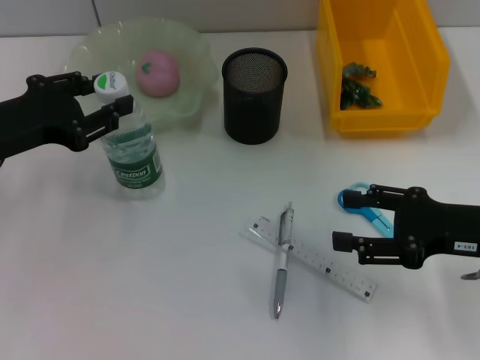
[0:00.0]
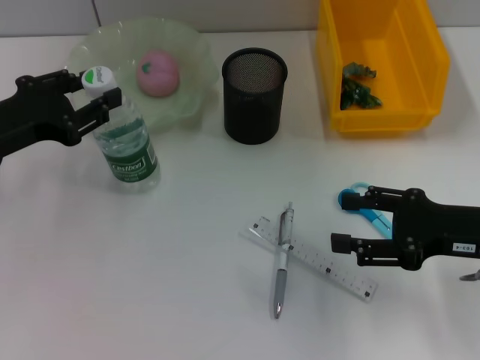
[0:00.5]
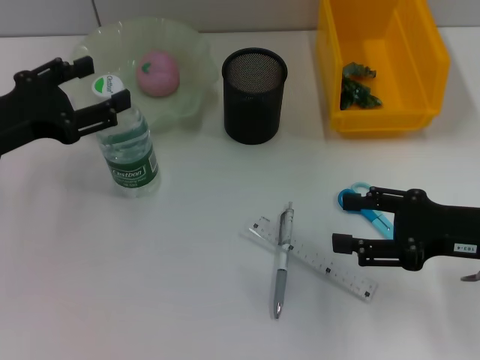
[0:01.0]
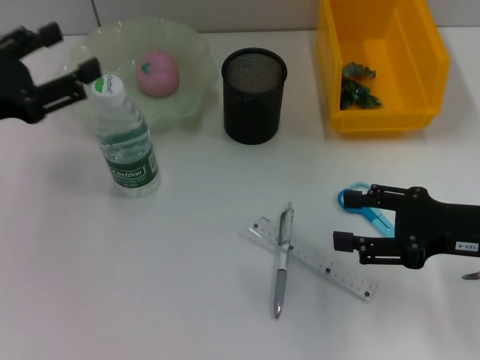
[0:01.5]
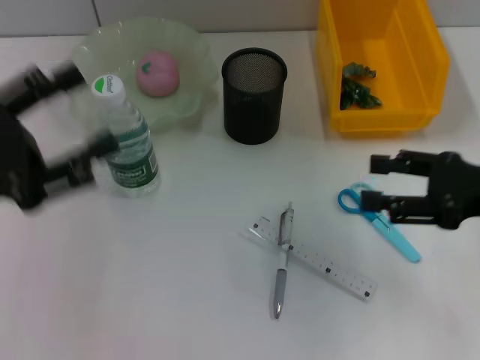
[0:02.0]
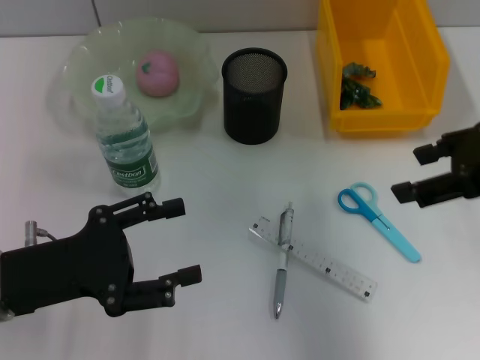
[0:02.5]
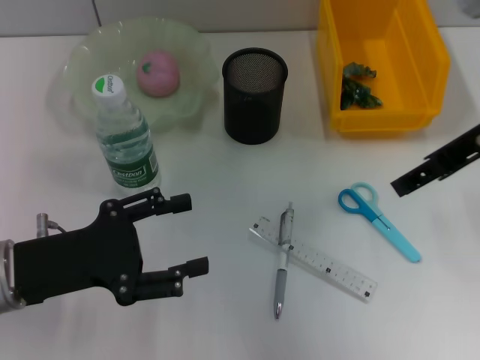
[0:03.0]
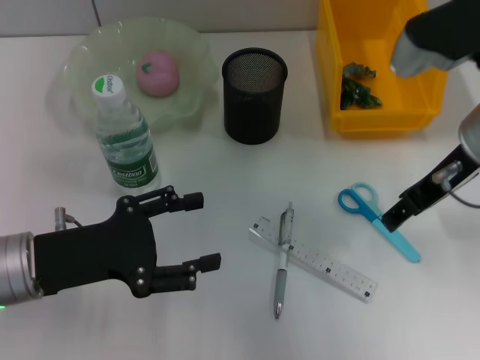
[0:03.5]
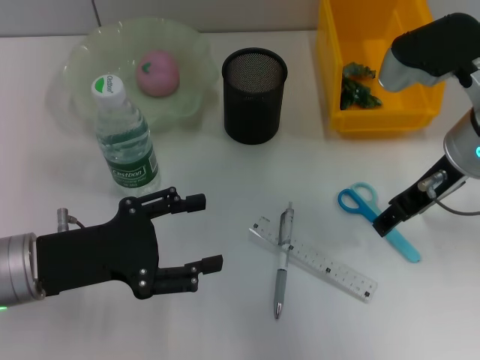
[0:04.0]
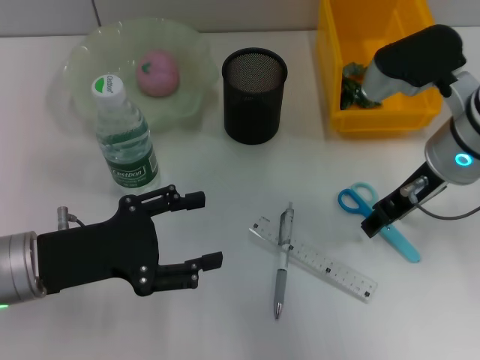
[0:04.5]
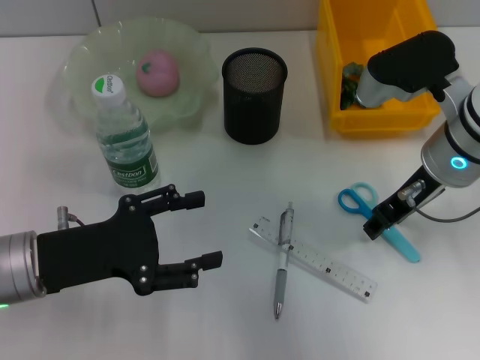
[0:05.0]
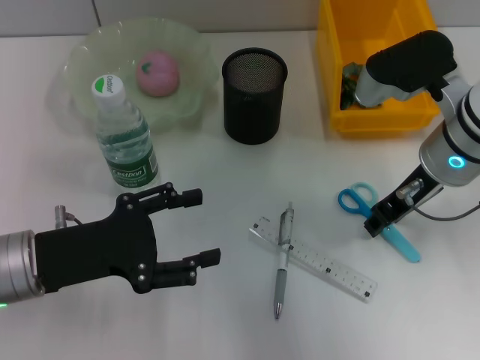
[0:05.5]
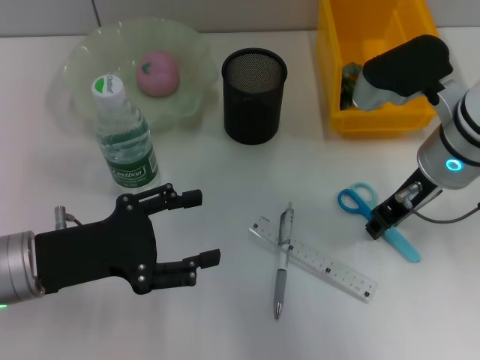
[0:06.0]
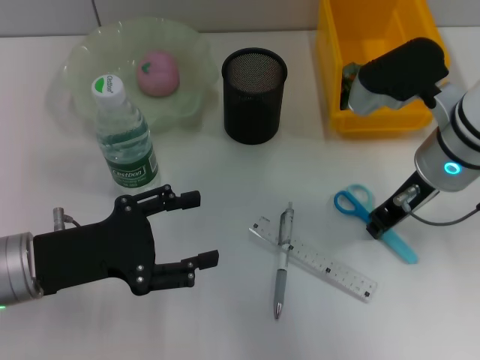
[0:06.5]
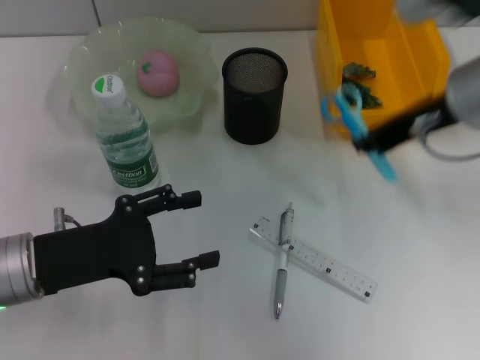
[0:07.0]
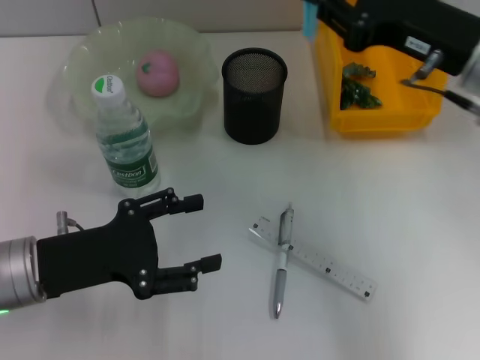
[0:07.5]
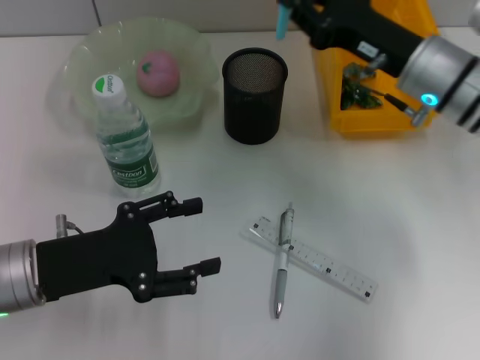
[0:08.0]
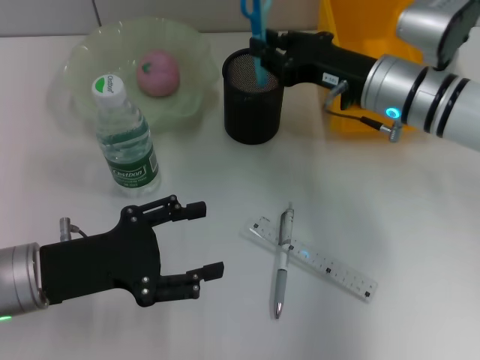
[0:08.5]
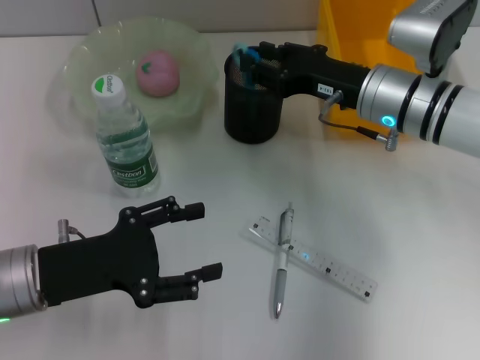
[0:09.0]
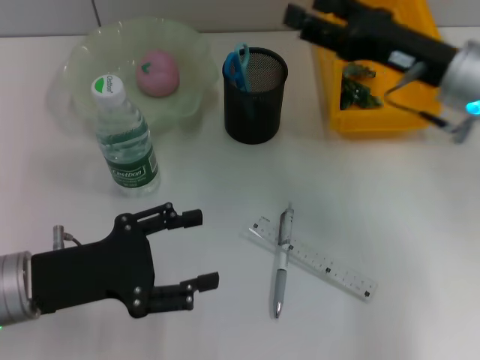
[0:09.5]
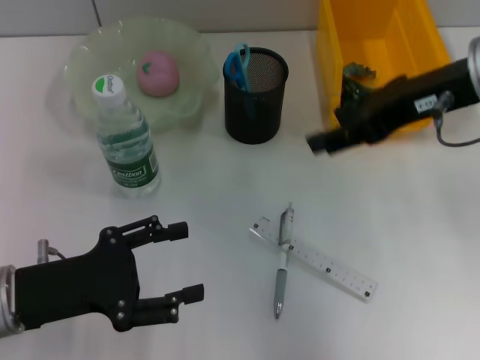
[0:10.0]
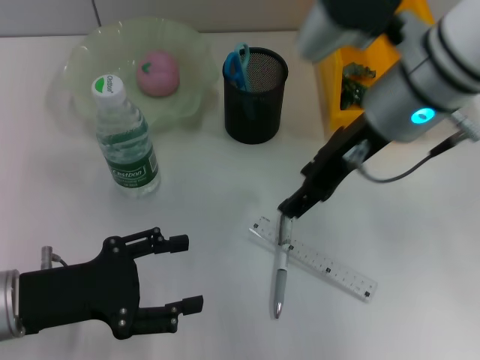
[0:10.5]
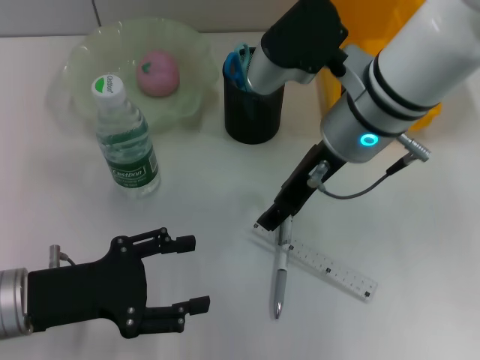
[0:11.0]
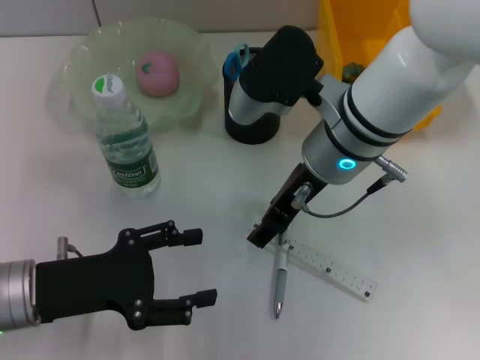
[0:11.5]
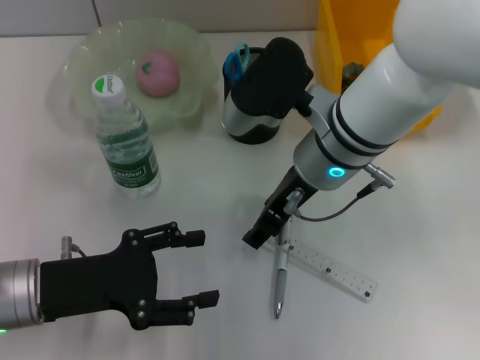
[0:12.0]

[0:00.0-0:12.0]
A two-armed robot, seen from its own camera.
Step, 0:01.5 to 0:06.0: Grab the blue scissors with the right hand.
Step, 0:06.5 to 0:09.0: Place the blue scissors into the pen holder with the right hand.
0:00.0 to 0:02.0: The left gripper moves backward, some 5 cm, and opens up.
0:02.0 to 0:04.0: The right gripper travels to the left and forward by some 15 cm, and reaches about 10 cm upward, then returns, while the left gripper goes some 10 cm downward and to the right.
0:04.0 to 0:06.0: The right gripper closes up.
0:06.0 to 0:08.0: The right gripper goes upward and returns, some 10 cm each way.
0:08.0 to 0:10.0: The right gripper heads upward, covering approximately 10 cm, and opens.
0:10.0 to 0:12.0: The right gripper shifts approximately 15 cm to the left and downward.

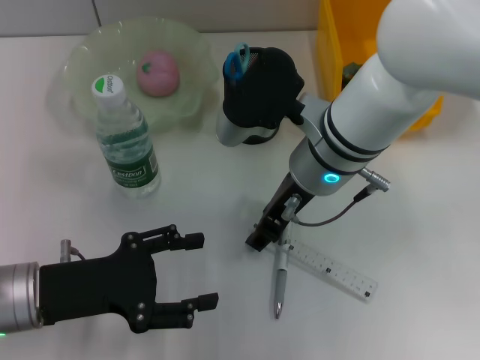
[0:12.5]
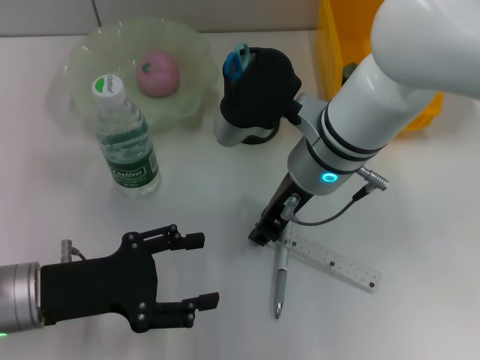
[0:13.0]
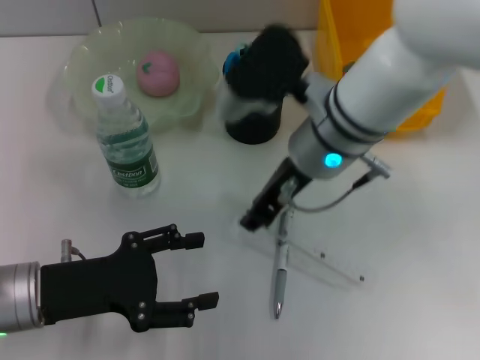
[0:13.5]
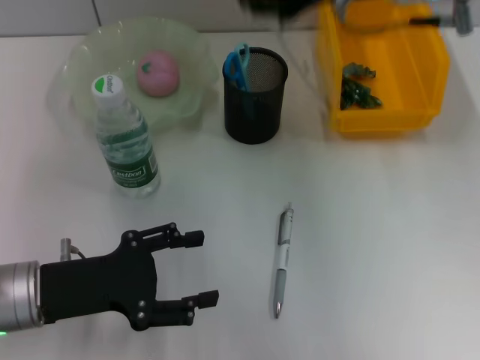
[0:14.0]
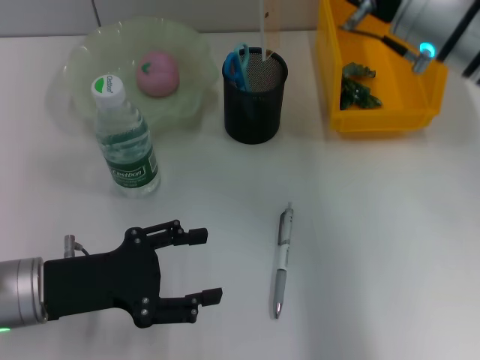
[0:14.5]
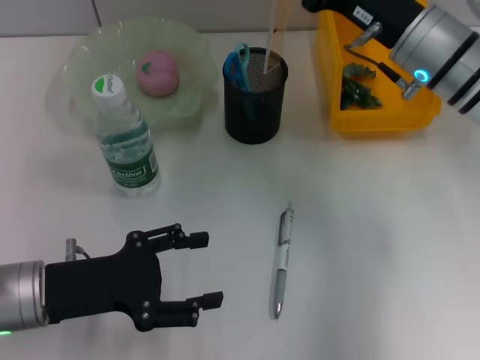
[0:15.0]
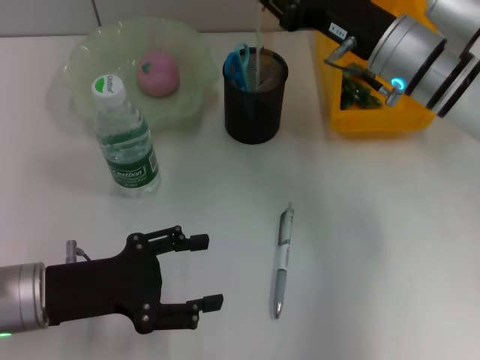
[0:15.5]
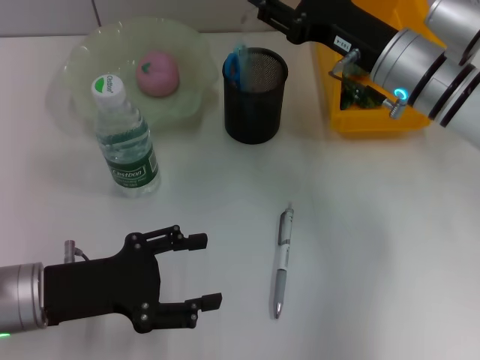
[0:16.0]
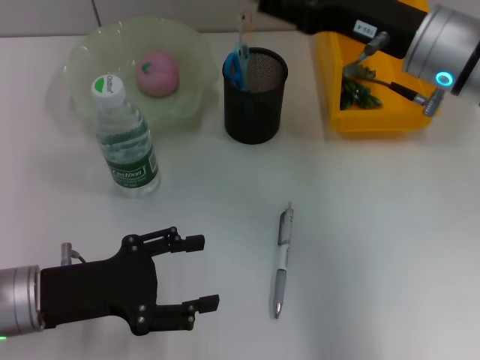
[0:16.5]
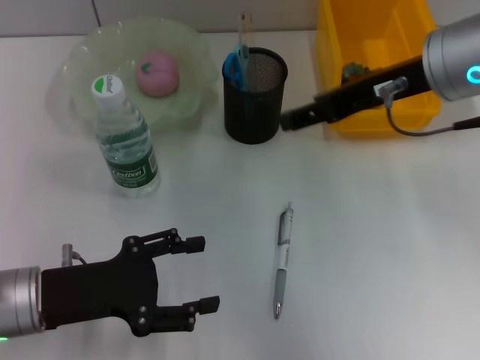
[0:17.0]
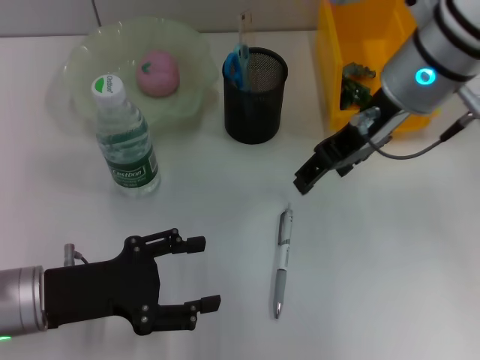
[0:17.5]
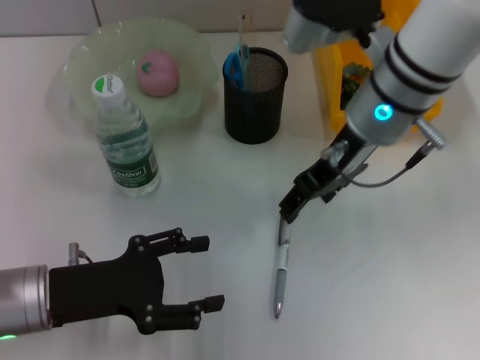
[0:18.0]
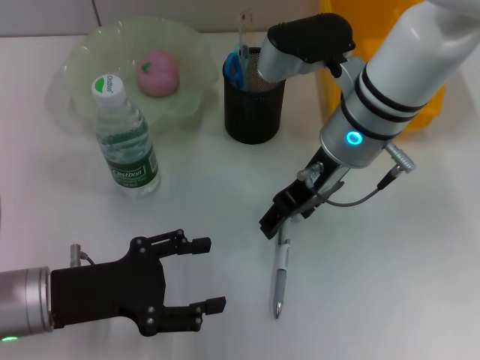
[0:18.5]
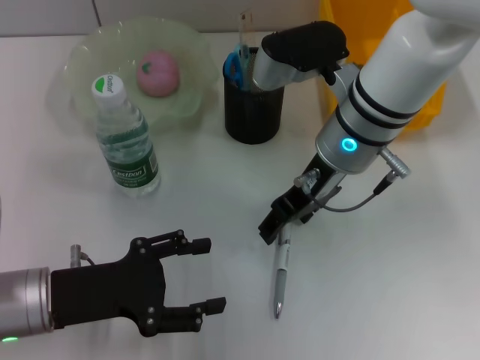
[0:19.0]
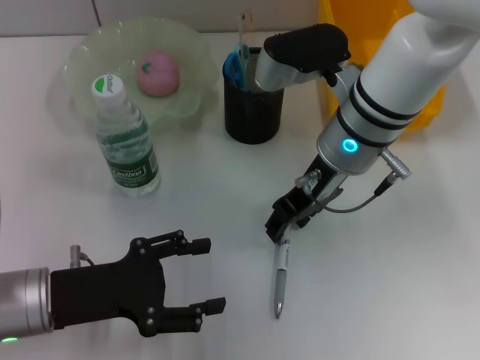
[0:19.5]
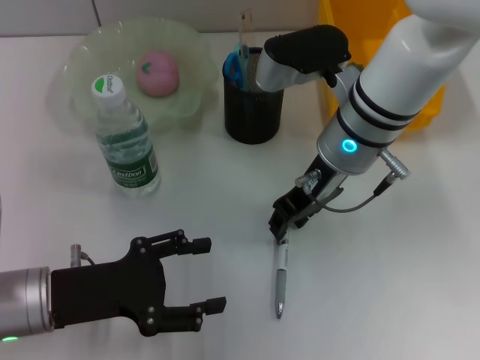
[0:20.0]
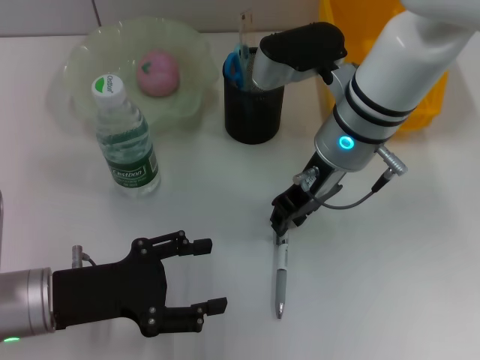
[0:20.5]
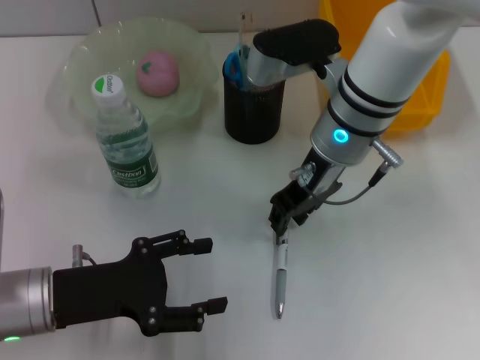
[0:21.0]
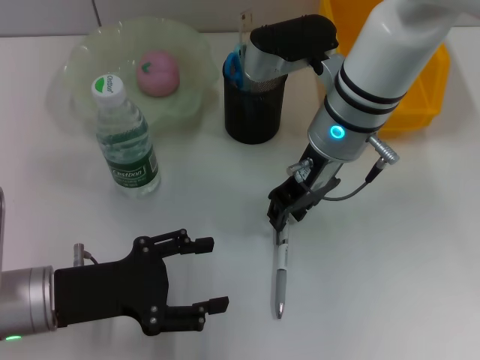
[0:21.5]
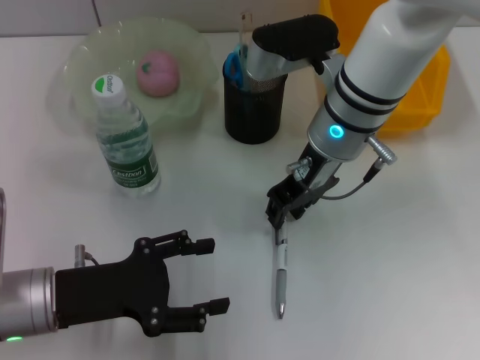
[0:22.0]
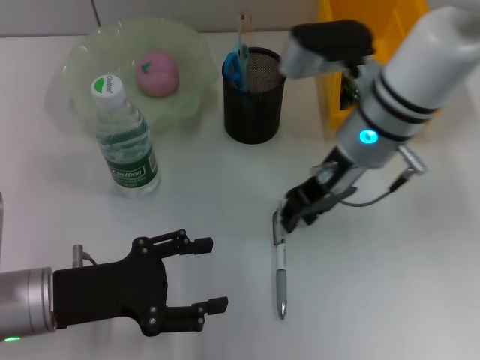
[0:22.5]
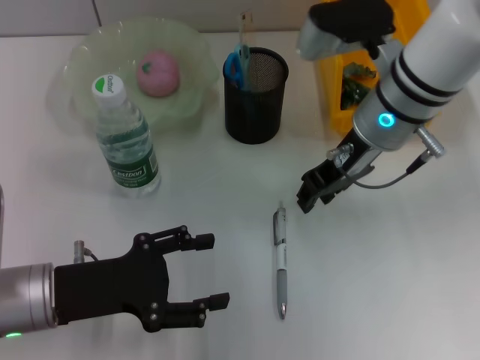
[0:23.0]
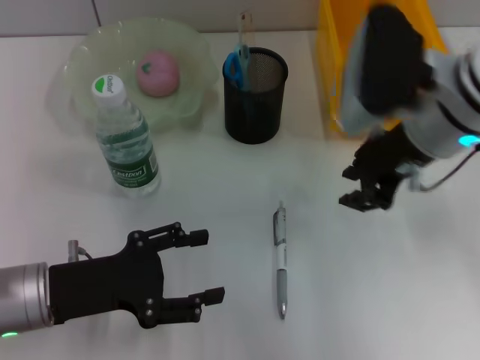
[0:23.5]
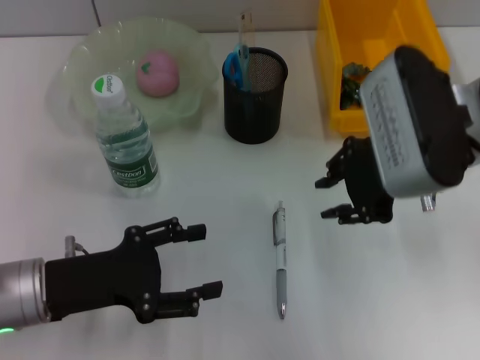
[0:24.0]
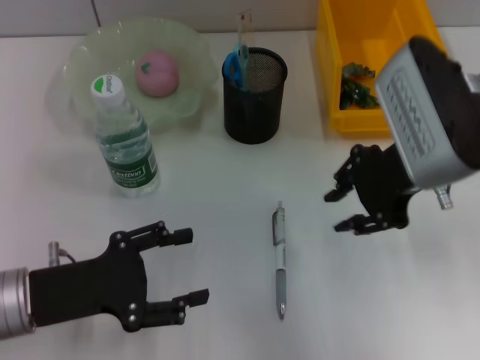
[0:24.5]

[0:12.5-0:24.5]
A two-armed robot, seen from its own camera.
Step, 0:13.5 to 0:16.0: Place the ruler into the pen holder with the right hand.
0:12.5 to 0:14.5: The right gripper is displaced to the right and upward by about 10 cm, and closes its fingers.
0:14.5 to 0:16.5: The right gripper opens its fingers.
0:16.5 to 0:18.5: The right gripper heads to the left, covering some 10 cm.
0:18.5 to 0:20.5: The right gripper closes.
0:20.5 to 0:22.5: The grippers move only a little.
0:22.5 to 0:24.5: The right gripper moves to the right, roughly 5 cm.

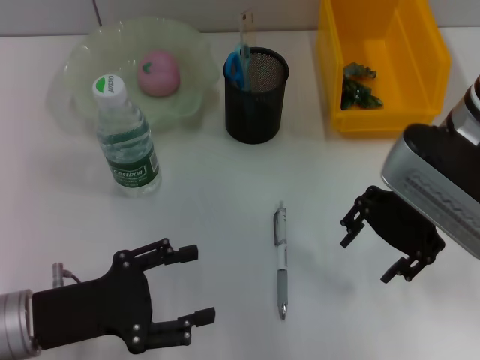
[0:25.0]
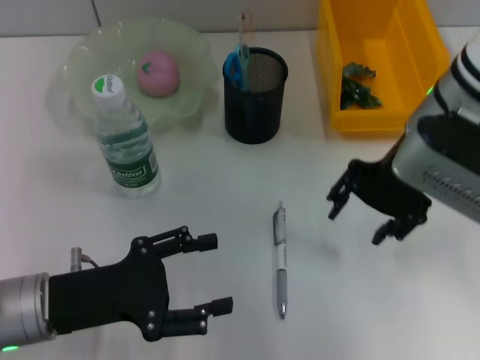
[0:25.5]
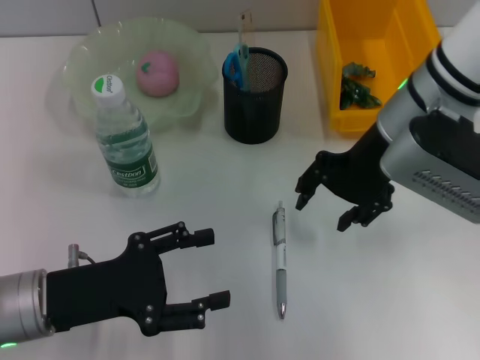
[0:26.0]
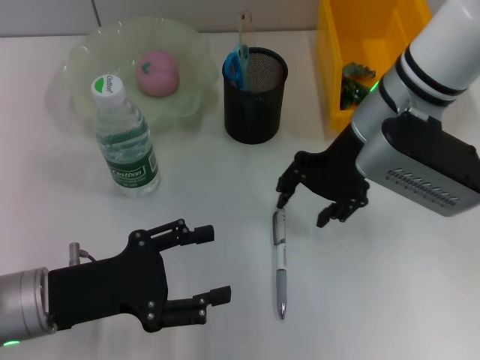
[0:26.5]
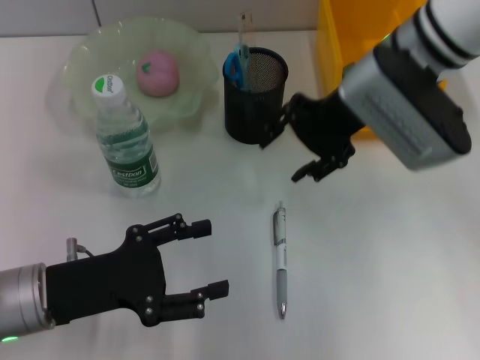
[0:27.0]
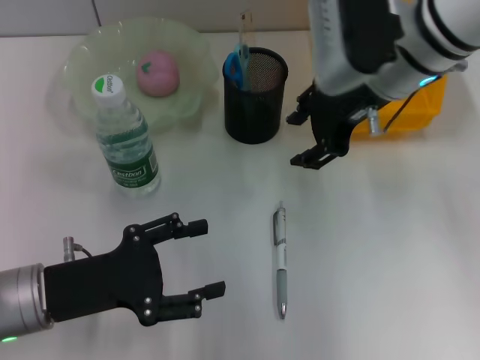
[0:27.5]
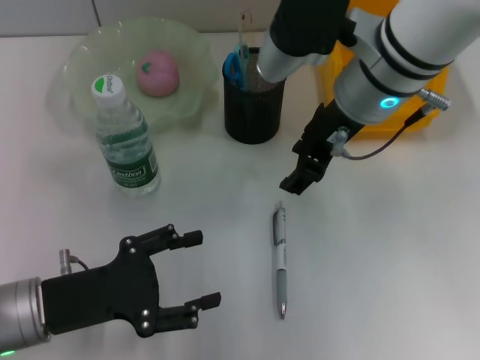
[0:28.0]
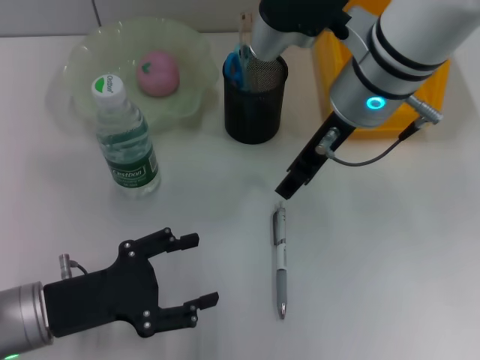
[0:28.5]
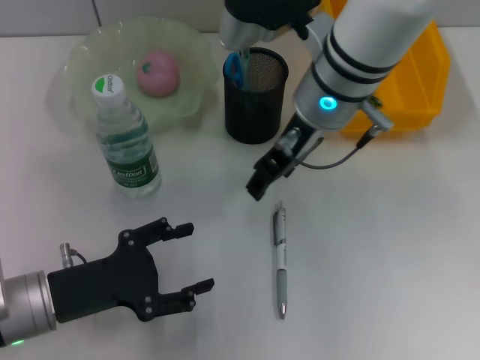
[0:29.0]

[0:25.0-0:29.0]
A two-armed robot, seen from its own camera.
0:25.0 to 0:27.0: The right gripper shifts roughly 5 cm forward.
0:27.0 to 0:29.0: The right gripper moves to the left, approximately 5 cm.
